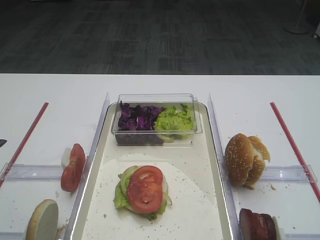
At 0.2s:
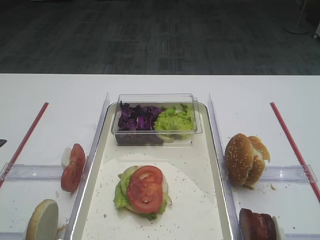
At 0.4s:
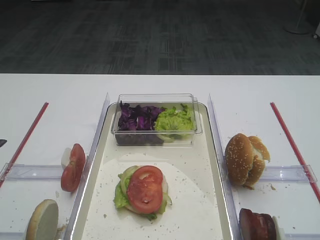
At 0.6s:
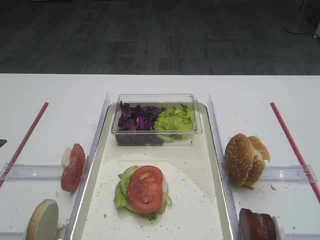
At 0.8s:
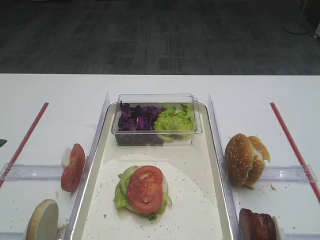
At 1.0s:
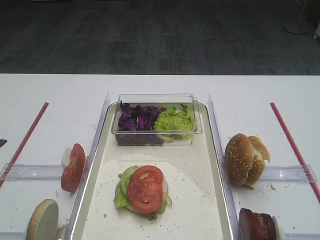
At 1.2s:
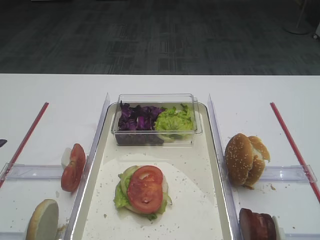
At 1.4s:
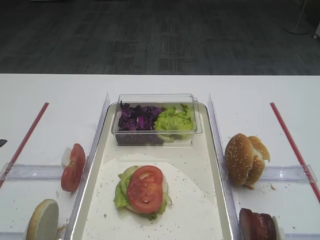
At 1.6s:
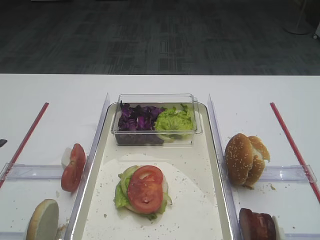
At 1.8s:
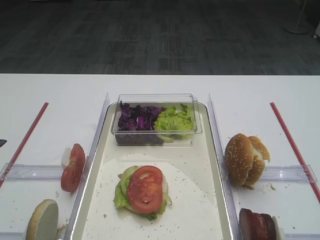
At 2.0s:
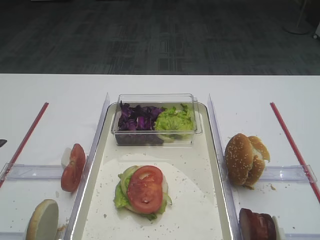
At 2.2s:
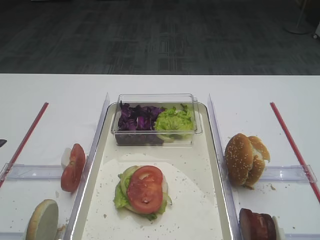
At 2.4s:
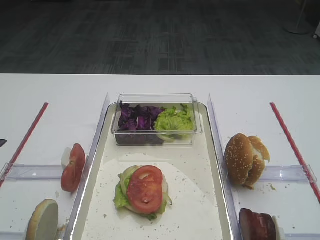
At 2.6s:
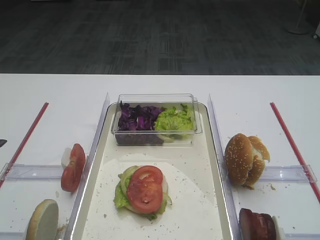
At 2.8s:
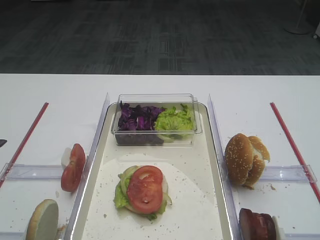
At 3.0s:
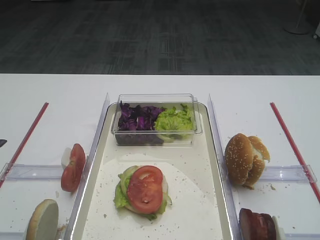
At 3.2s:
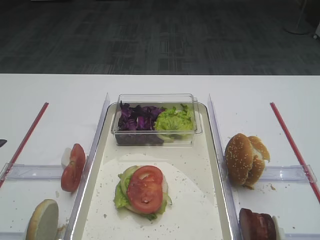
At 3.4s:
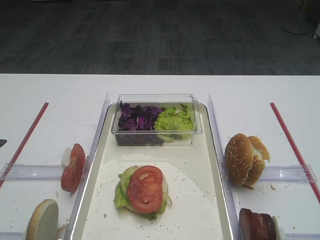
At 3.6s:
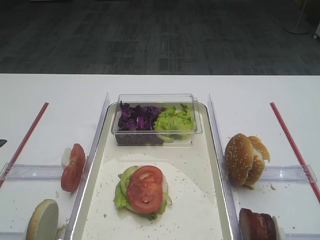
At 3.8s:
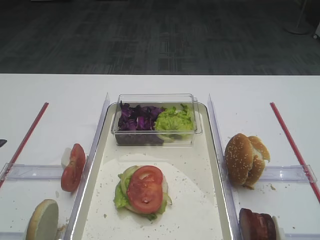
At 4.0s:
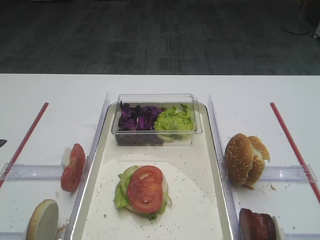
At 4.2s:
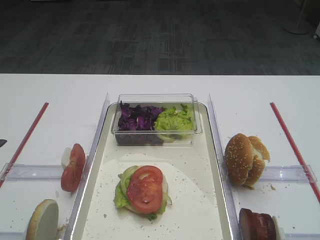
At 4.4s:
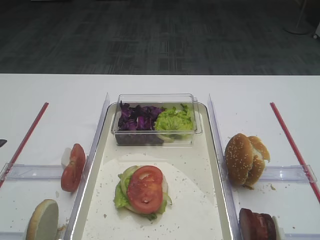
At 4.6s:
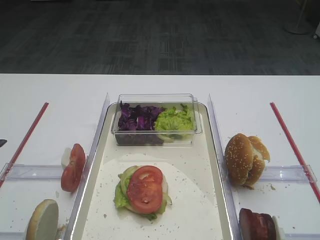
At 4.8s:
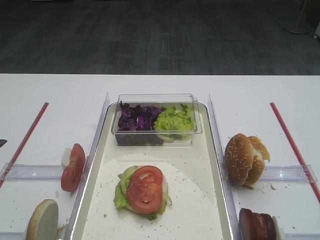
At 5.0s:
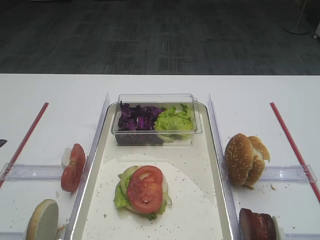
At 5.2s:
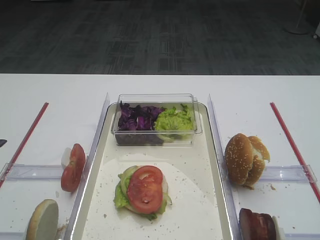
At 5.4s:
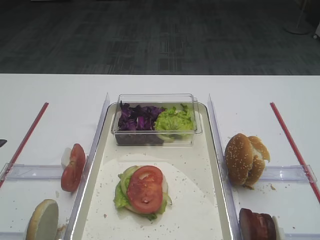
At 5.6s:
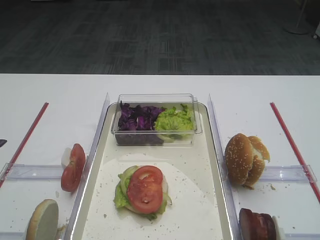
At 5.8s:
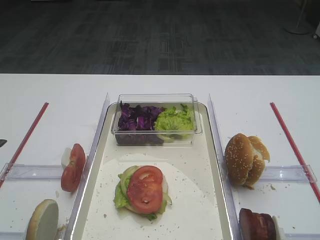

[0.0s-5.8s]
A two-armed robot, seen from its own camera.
1.4s to 5.8s: Both grippers stay put.

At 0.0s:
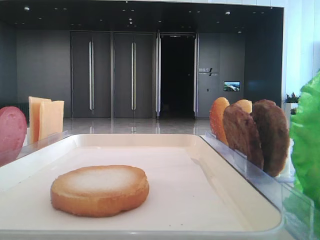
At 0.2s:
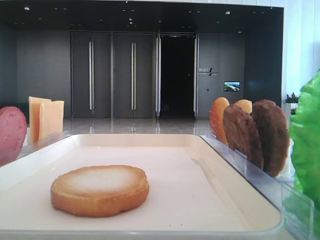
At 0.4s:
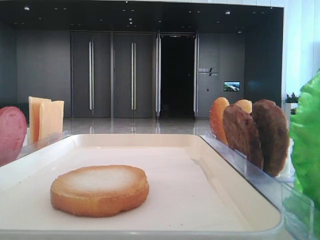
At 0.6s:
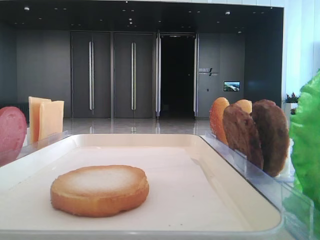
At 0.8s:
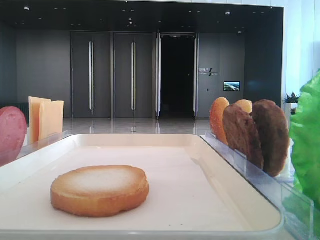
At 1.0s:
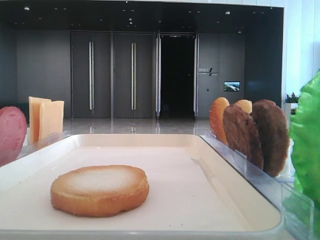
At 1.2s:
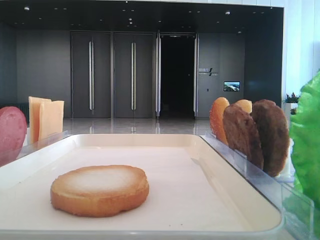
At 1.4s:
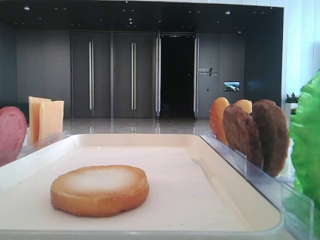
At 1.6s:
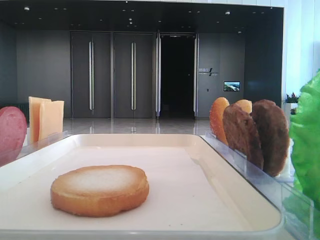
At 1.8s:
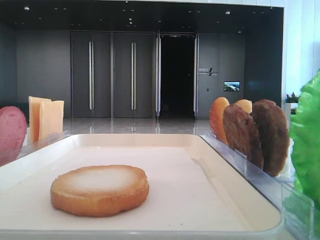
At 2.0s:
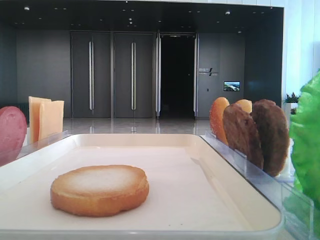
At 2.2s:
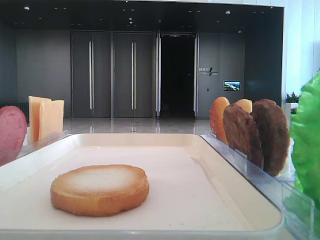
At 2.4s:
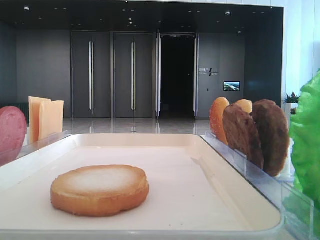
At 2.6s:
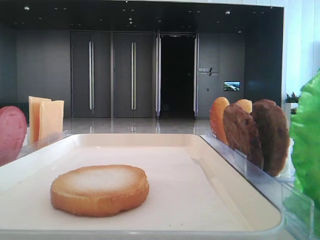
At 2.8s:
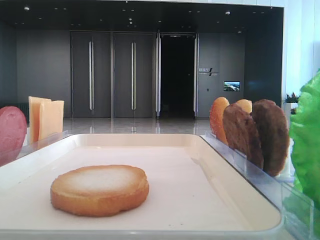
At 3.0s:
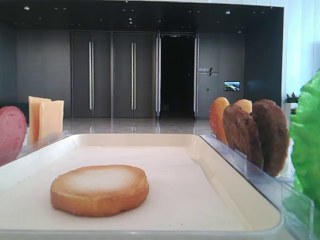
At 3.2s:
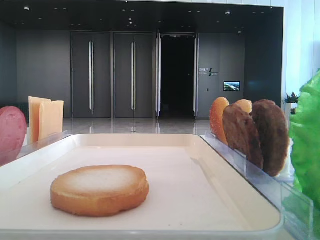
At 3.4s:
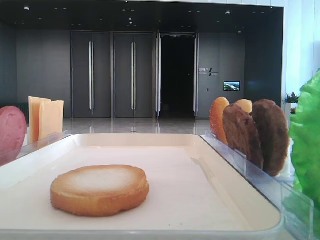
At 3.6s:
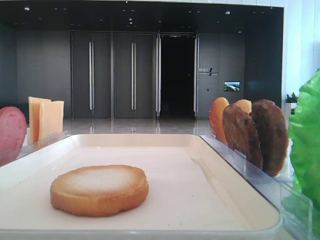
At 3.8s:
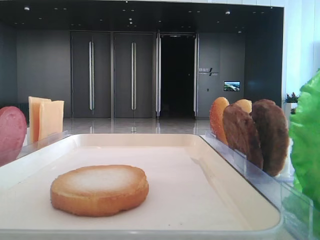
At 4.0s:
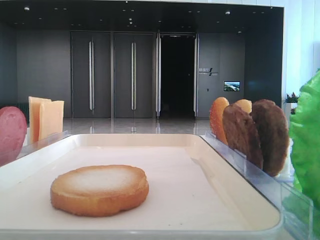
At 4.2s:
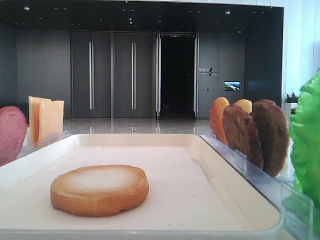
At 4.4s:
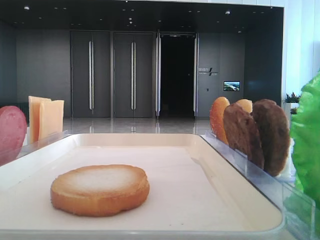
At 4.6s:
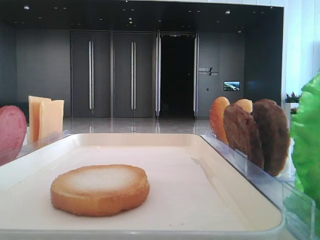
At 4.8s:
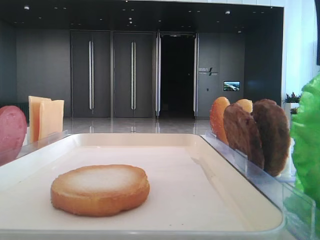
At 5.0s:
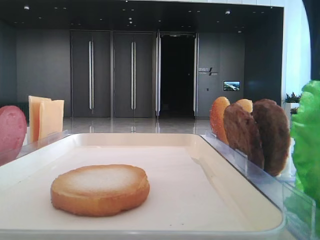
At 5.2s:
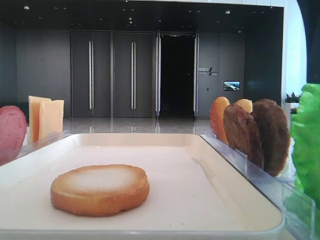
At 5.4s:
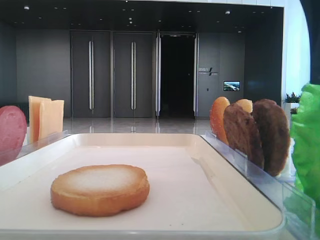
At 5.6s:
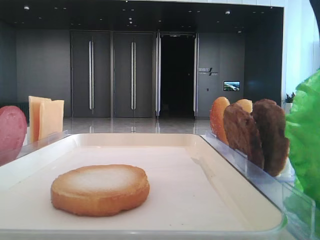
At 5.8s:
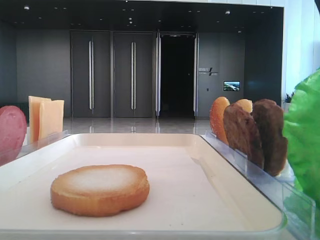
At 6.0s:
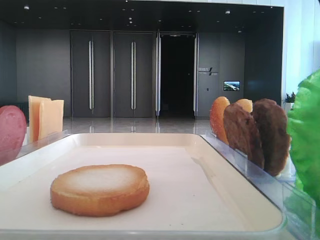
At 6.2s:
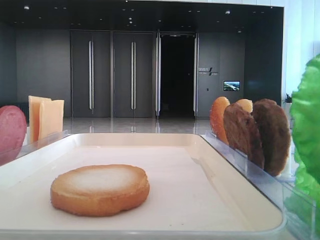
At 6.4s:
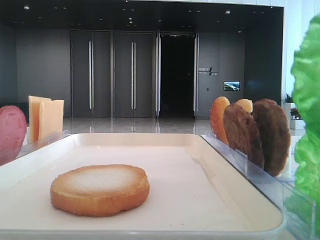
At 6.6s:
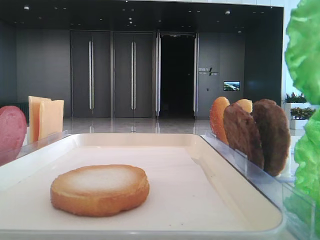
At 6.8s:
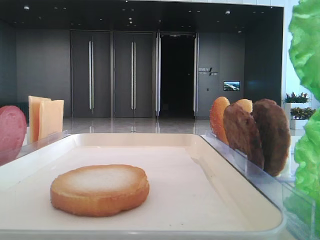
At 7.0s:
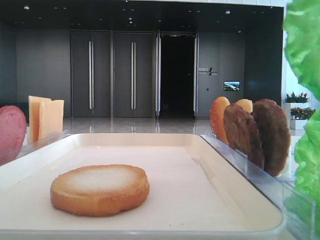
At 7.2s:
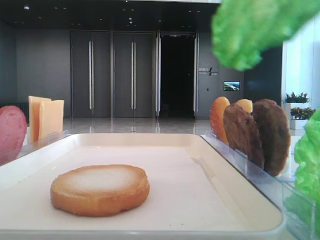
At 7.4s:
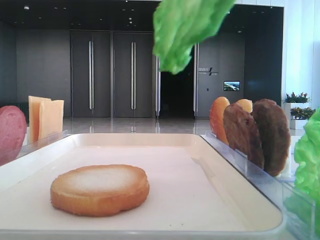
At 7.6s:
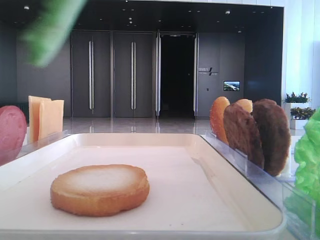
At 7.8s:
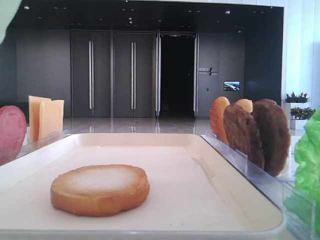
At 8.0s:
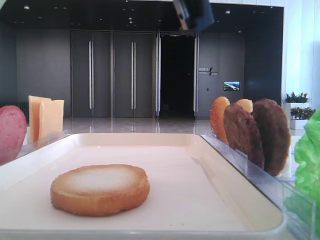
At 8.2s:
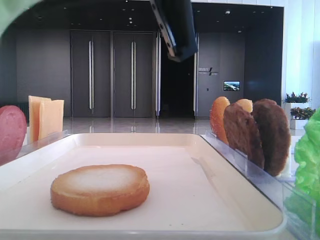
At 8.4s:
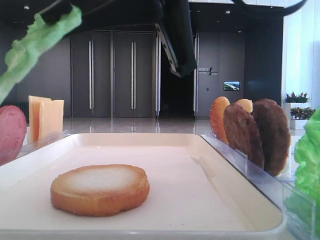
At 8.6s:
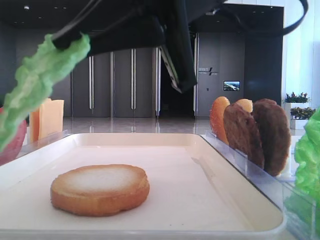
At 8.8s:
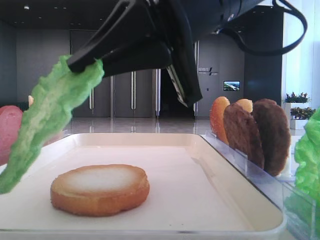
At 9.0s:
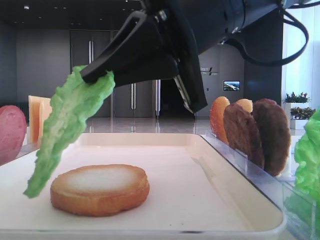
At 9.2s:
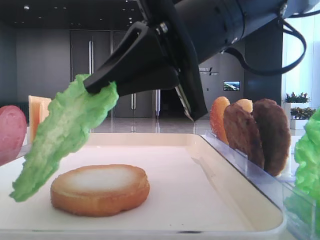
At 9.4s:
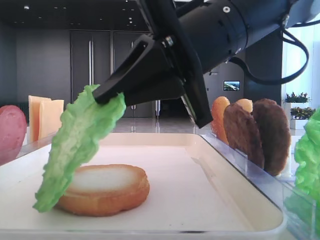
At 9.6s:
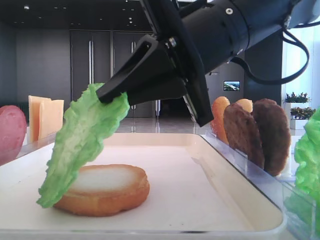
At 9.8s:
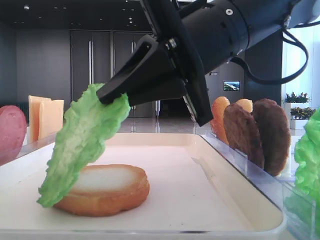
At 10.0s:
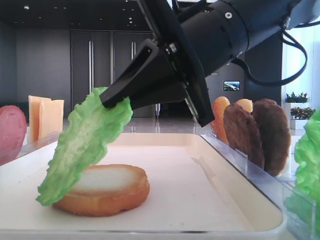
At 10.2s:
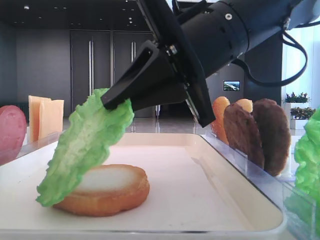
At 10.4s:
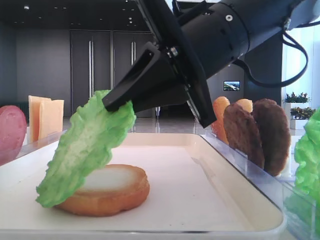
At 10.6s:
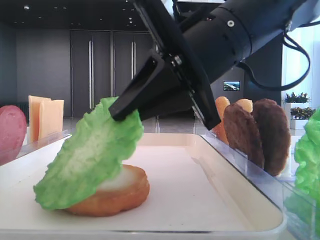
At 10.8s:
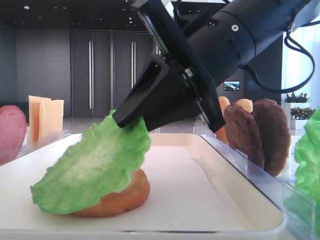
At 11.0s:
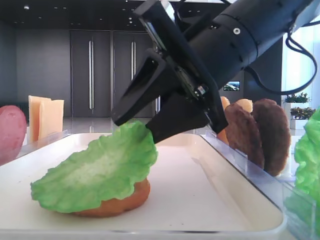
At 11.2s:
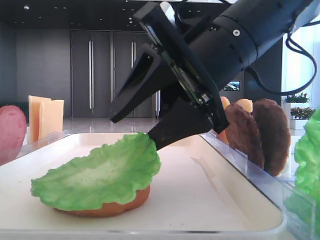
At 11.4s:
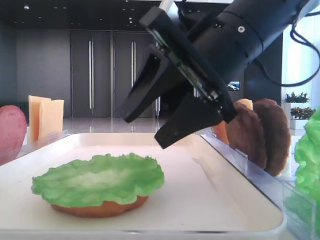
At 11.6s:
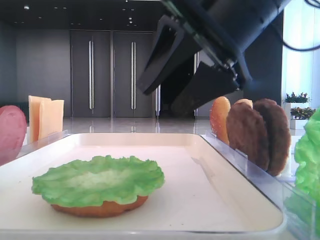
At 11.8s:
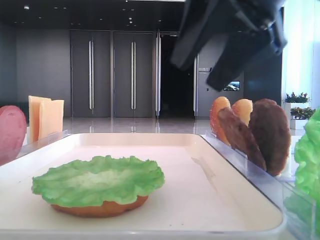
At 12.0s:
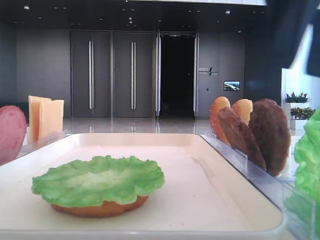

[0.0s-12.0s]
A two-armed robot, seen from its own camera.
Step, 0.0s to 5.8s: Grab the lettuce leaf with the right hand.
Step, 6.0s to 11.2s: Place the lettuce leaf on the bottom bread with the right hand.
4.4s to 6.0s: The right gripper closes up.
6.0s to 7.6s: The right gripper is displaced to the left and upward by roughly 10 cm.
7.6s to 9.0s: The right gripper is displaced downward and forward by approximately 15 cm.
9.0s to 10.4s: The grippers move only a little.
10.4s to 12.0s: The right gripper goes about 15 cm to the right and upward, and opens.

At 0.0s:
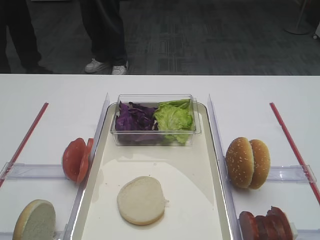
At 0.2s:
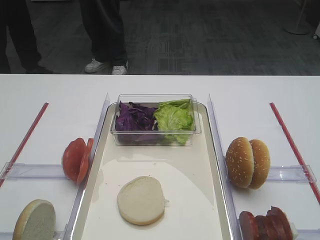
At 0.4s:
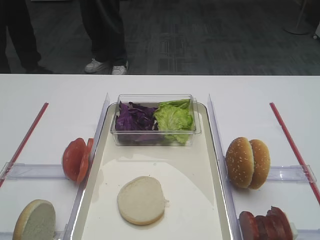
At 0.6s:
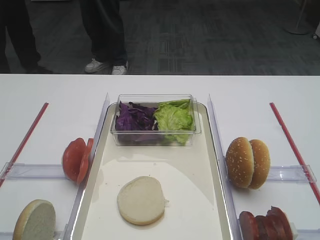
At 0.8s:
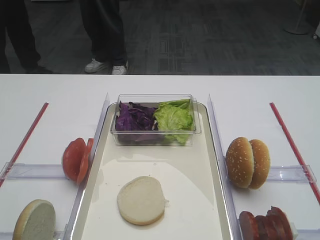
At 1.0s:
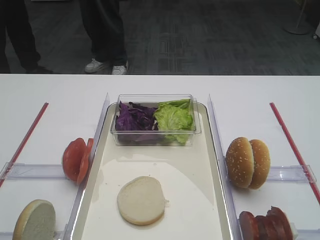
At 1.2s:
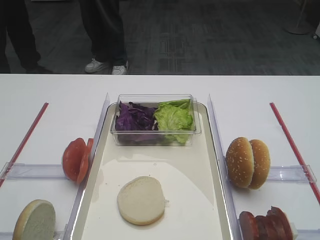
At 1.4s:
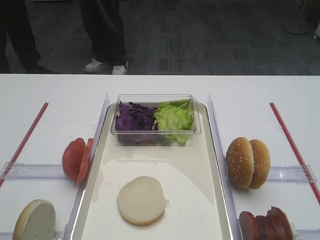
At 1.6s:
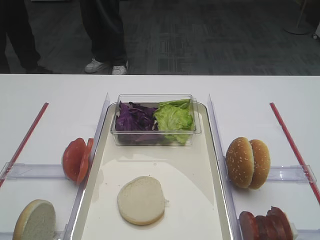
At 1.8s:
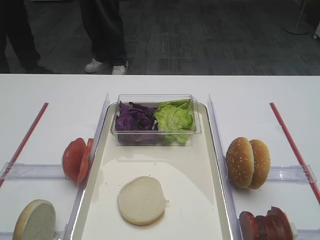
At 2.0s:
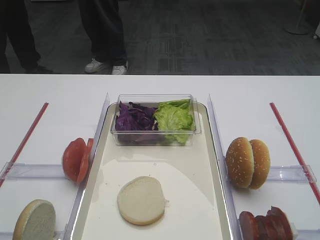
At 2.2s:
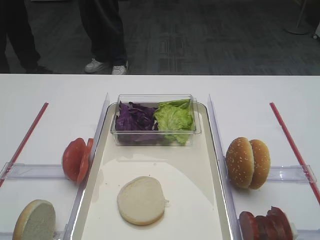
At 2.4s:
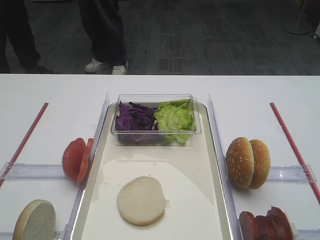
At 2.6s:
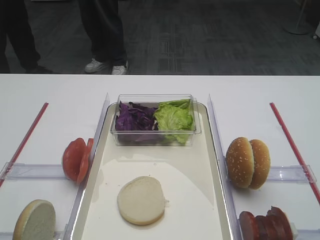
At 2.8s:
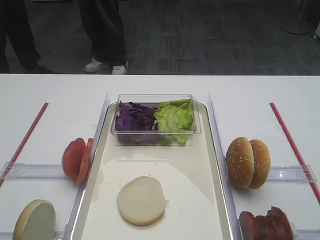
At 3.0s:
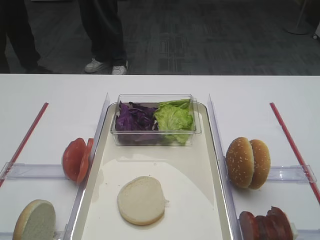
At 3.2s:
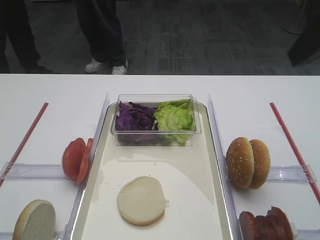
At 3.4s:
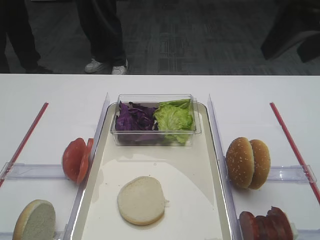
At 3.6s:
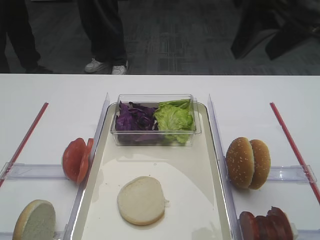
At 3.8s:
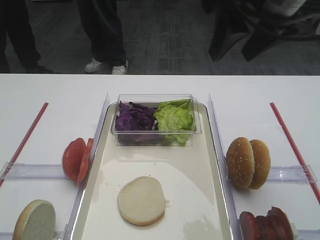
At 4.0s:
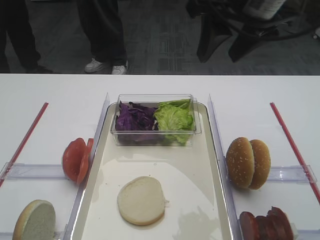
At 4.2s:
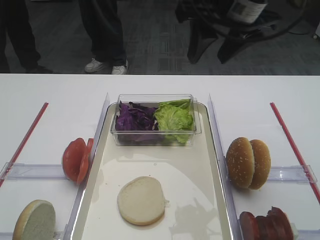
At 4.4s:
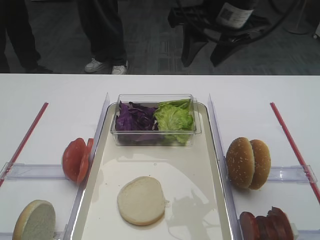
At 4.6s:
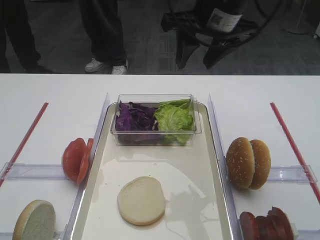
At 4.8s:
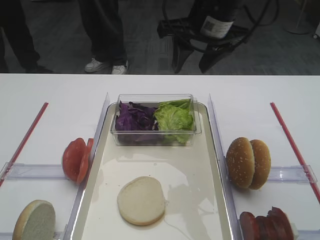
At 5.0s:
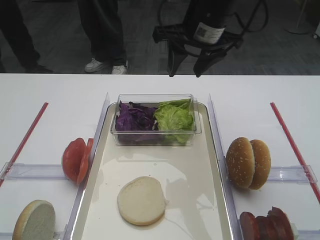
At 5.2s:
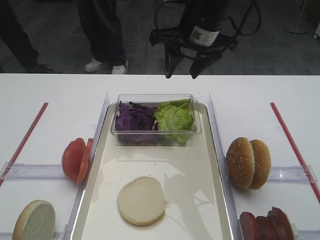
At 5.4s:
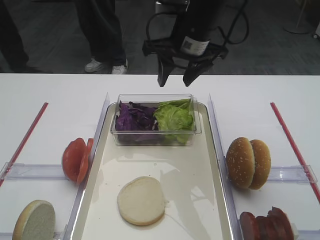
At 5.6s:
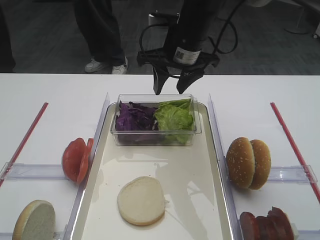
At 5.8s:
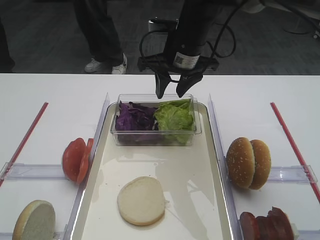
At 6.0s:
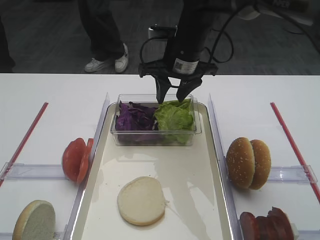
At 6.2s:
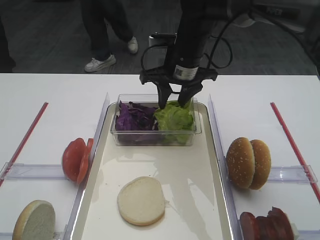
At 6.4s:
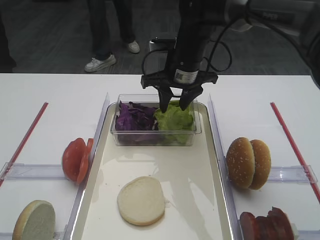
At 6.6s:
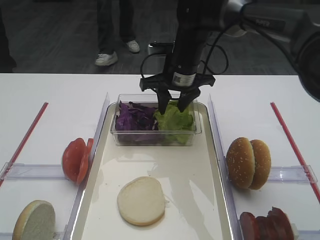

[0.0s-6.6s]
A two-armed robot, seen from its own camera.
1.6s to 3.2s: The right gripper is displaced forward and upward by approximately 20 cm.
3.2s to 5.0s: The right gripper shifts roughly 25 cm forward, to the left and downward.
5.0s to 6.6s: The right gripper travels downward by roughly 10 cm.
